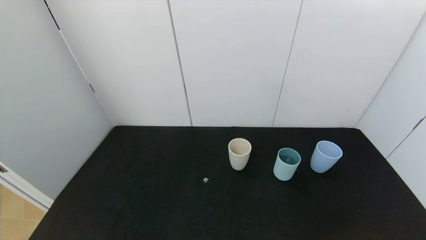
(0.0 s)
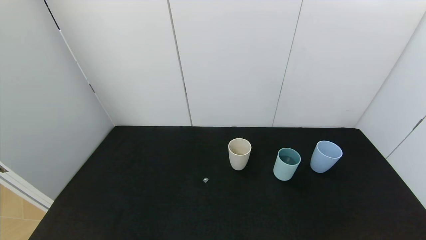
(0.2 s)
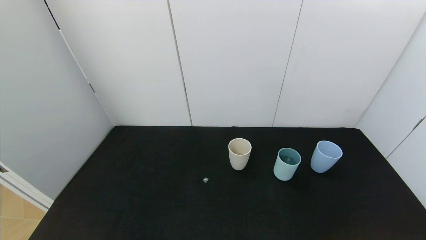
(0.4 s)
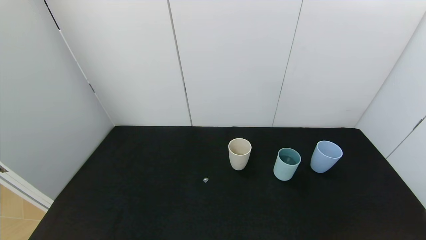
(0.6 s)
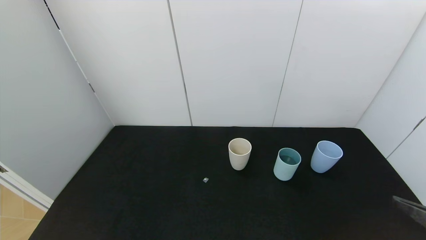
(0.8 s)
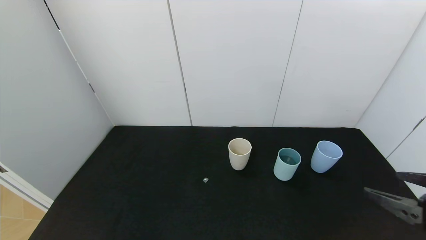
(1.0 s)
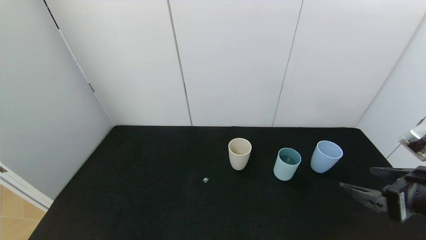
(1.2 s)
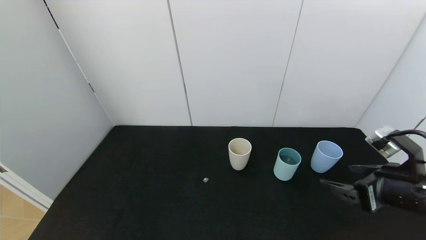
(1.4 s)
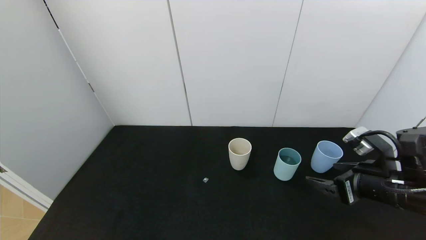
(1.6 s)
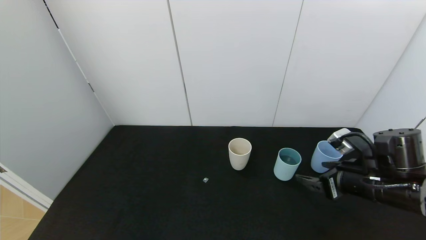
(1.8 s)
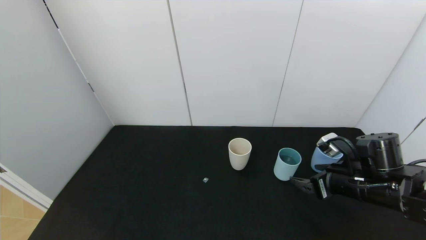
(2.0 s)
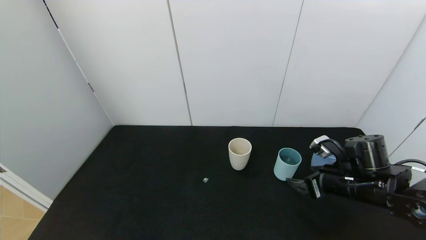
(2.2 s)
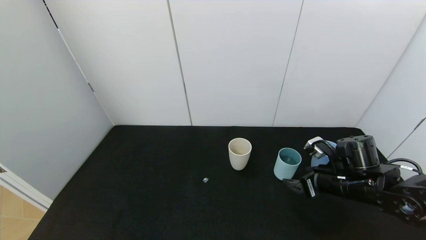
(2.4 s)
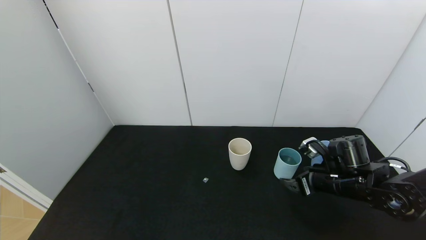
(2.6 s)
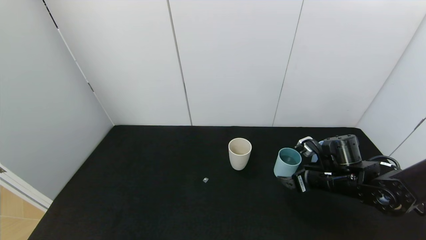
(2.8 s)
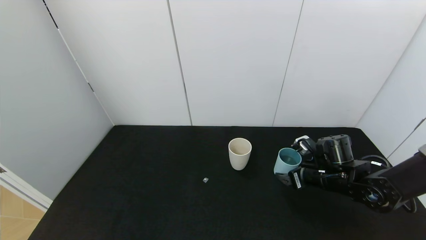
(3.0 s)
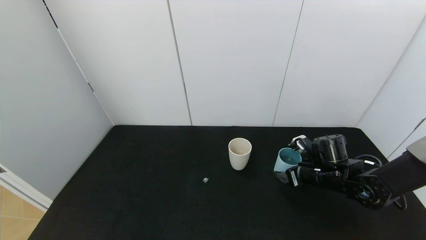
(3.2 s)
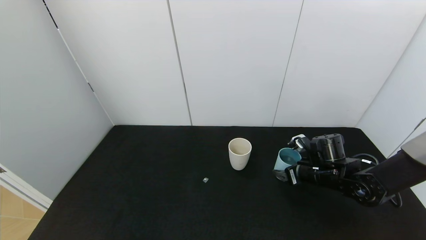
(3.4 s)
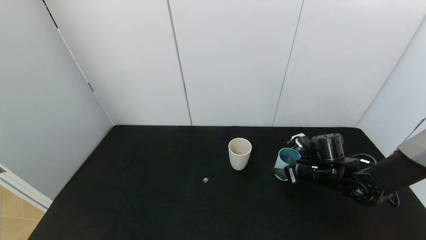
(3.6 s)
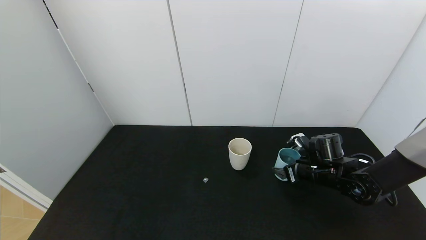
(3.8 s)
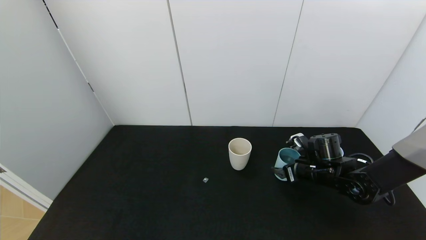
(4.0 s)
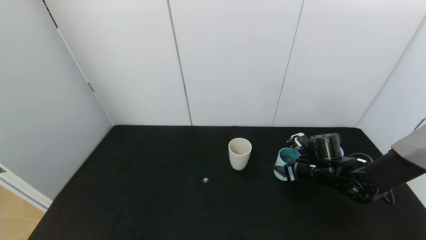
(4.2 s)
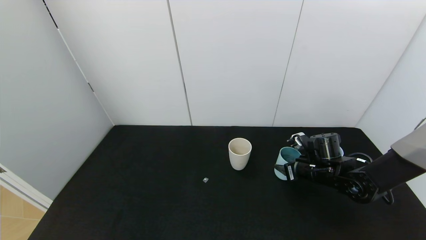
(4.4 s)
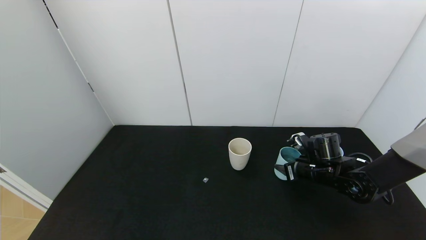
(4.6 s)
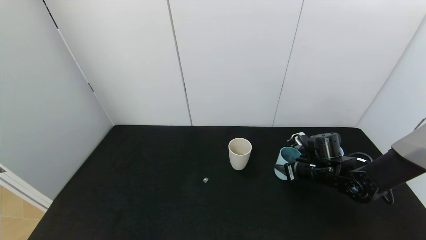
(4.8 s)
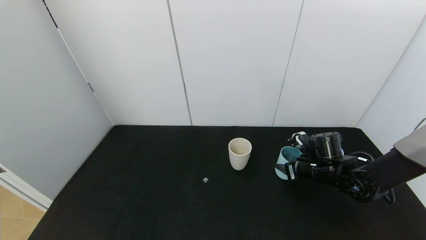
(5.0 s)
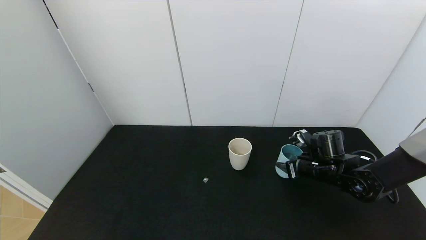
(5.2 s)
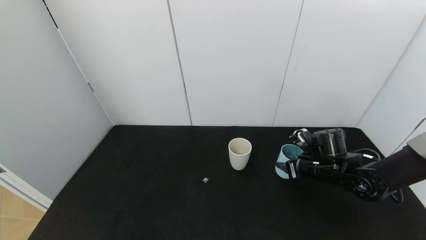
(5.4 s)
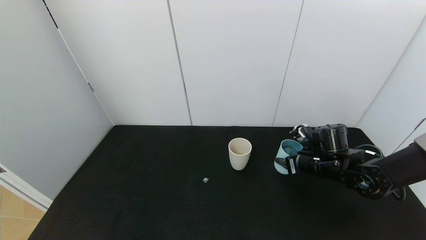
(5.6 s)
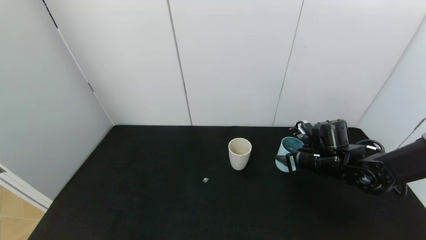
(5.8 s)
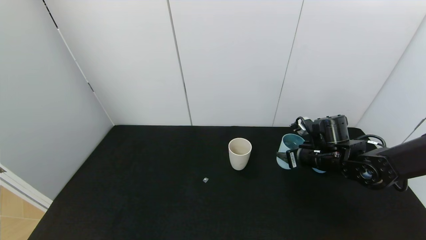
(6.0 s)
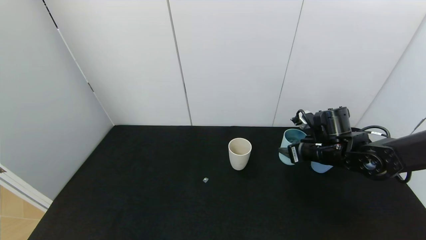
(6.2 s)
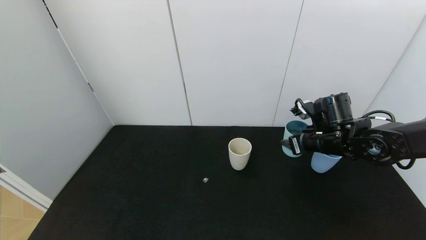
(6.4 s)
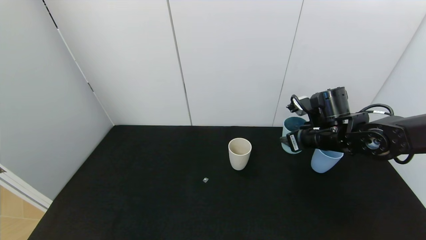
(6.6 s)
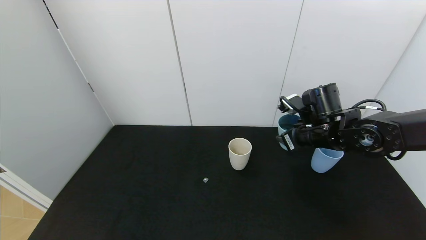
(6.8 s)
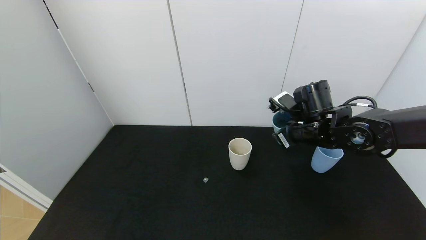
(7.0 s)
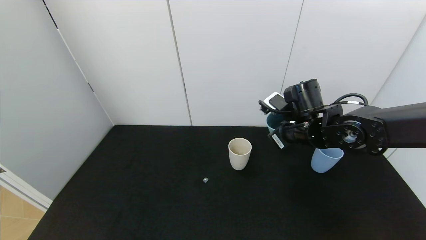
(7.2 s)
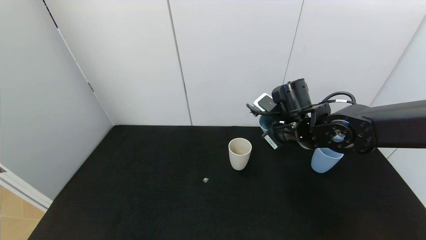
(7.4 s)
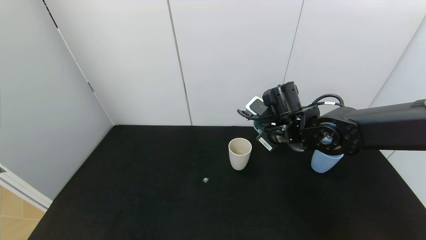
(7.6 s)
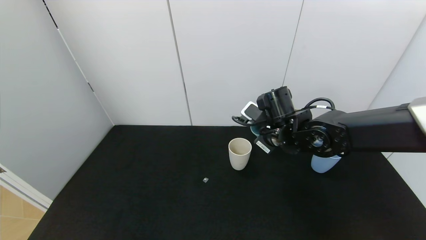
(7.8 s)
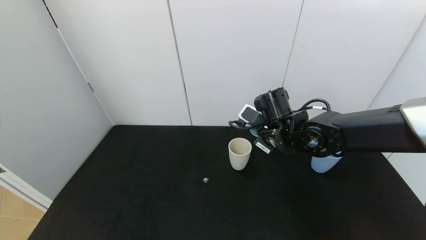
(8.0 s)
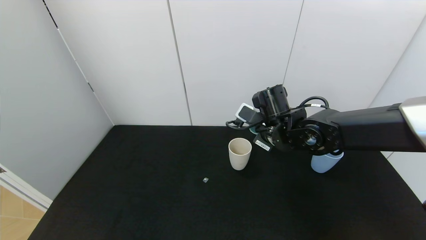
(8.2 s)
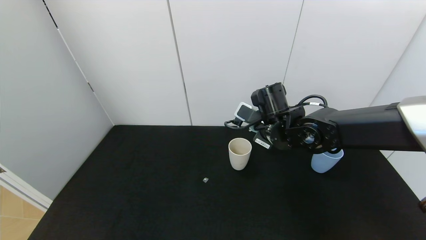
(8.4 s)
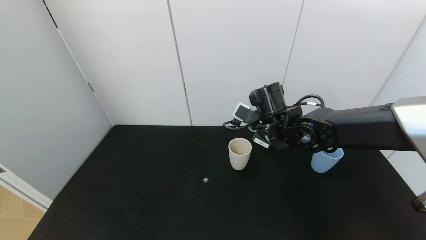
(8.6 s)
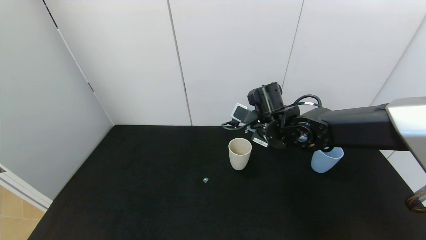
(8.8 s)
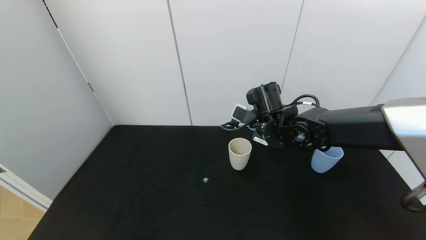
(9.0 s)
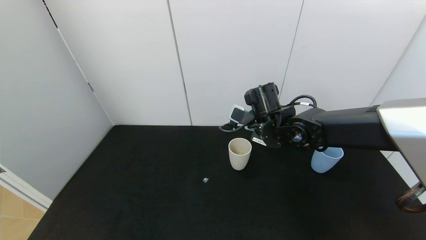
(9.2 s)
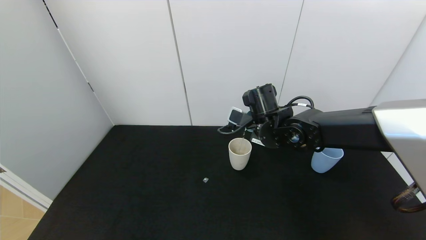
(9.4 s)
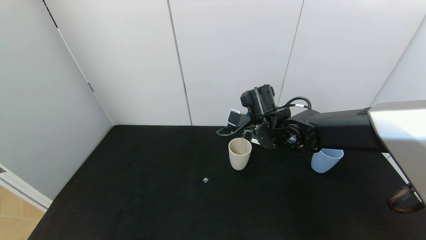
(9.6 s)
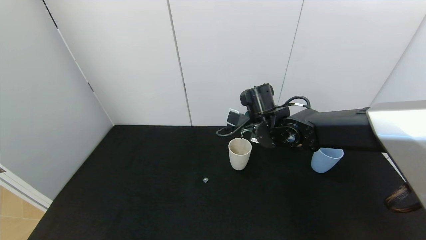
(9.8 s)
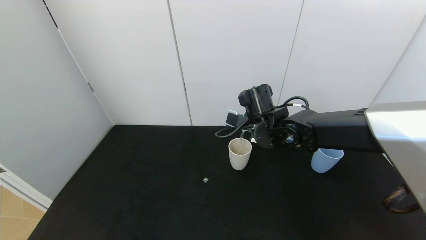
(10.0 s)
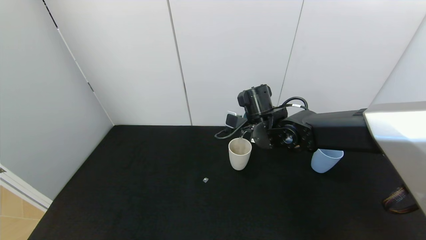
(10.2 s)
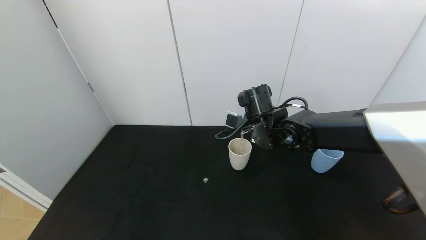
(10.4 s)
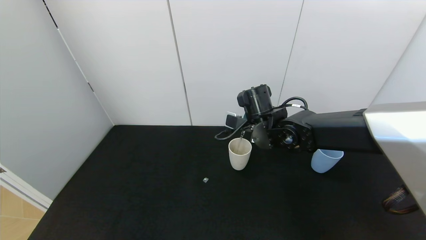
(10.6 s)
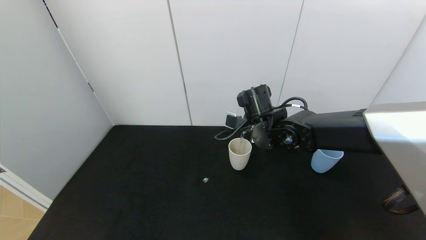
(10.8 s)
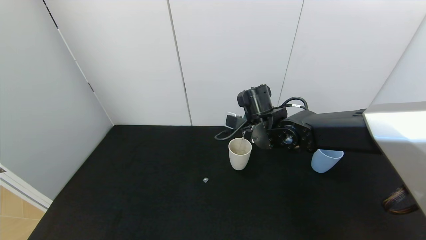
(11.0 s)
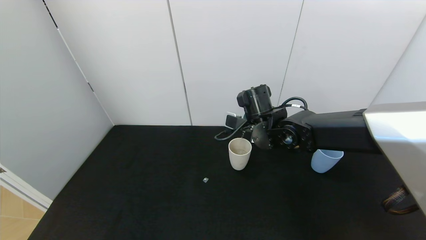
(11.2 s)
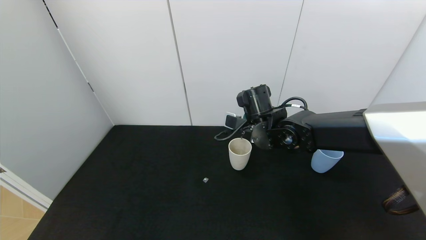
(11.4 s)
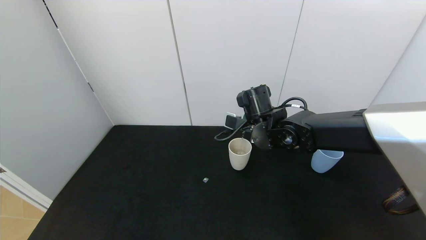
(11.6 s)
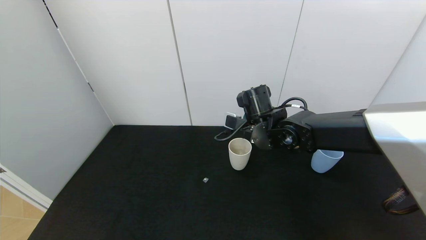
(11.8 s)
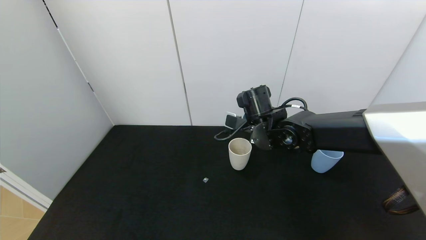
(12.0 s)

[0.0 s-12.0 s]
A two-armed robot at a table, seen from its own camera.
Task of the whole recording: use the gripper to pour the water into the other two cups on black table.
Step, 0.0 to 4.2 s: Grasp the green cup with the right gripper.
0.0 to 1.6 s: The right gripper heads forward, covering some 25 cm.
1.6 to 3.0 s: The right gripper shifts about 15 cm forward and downward.
3.0 to 4.4 s: The right gripper closes its fingers.
4.4 to 6.0 s: The right gripper is displaced upward by roughly 5 cm.
6.0 to 7.6 s: The right gripper moves to the left and upward, roughly 15 cm.
9.0 to 10.4 s: The grippers make only small movements.
10.4 to 12.0 s: Neither gripper changes place.

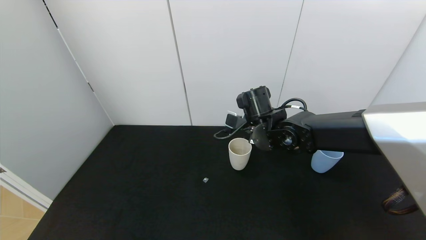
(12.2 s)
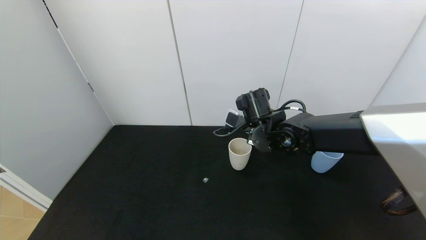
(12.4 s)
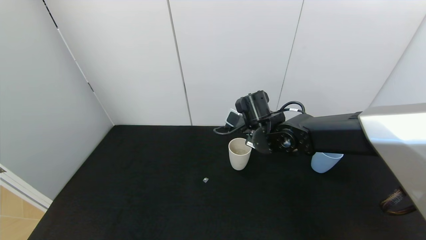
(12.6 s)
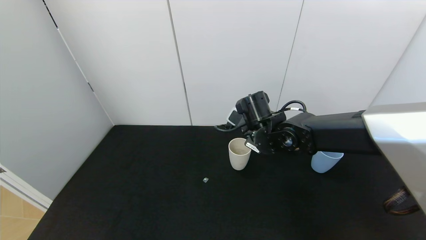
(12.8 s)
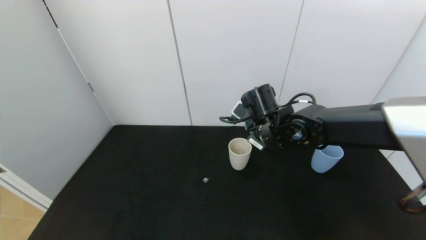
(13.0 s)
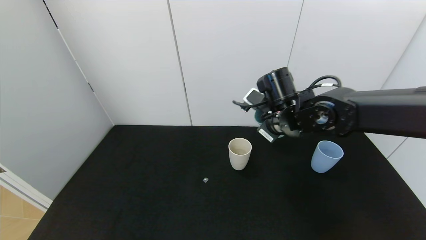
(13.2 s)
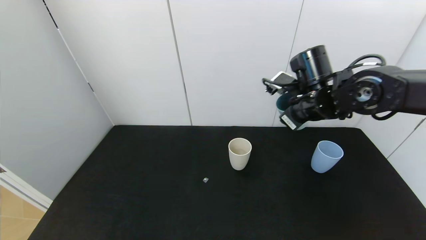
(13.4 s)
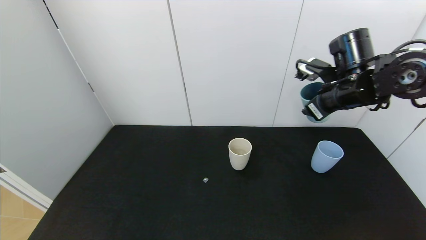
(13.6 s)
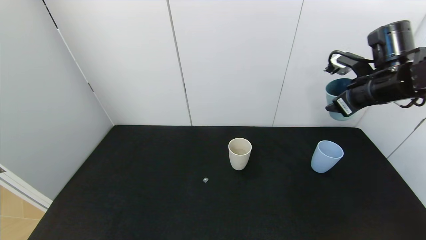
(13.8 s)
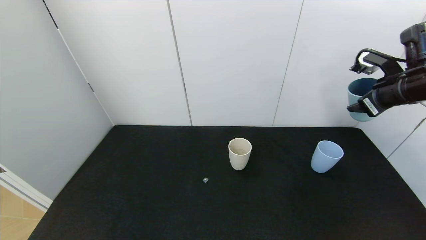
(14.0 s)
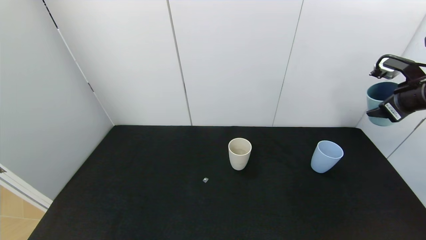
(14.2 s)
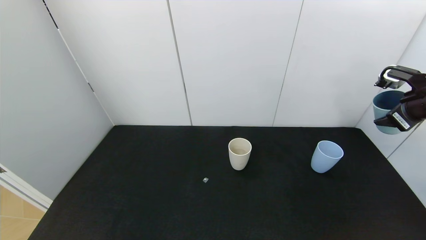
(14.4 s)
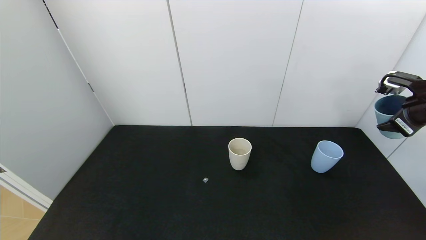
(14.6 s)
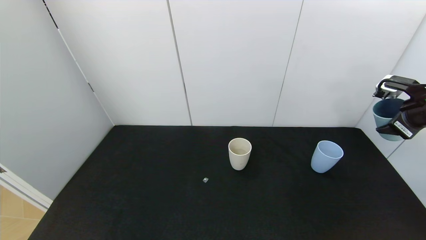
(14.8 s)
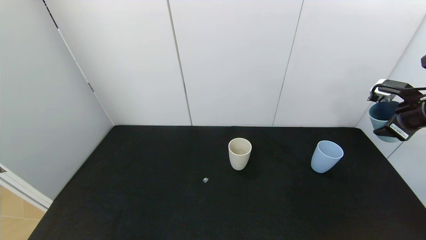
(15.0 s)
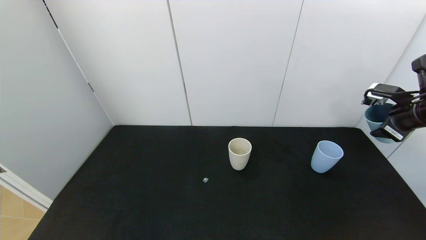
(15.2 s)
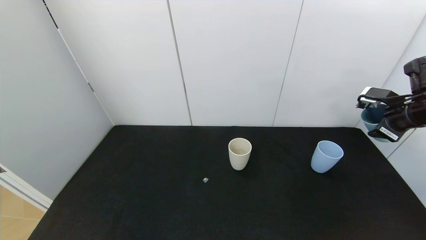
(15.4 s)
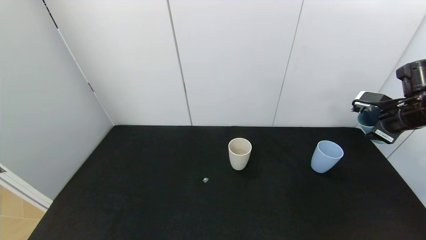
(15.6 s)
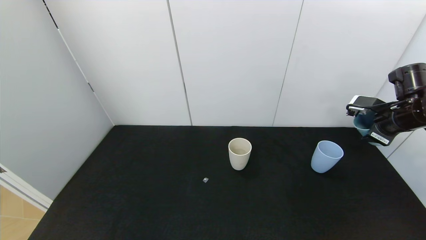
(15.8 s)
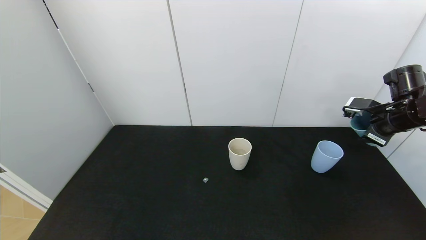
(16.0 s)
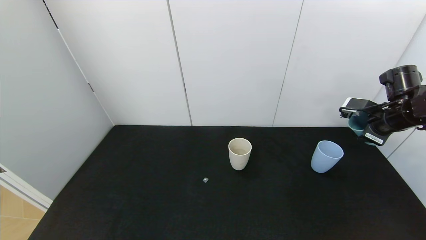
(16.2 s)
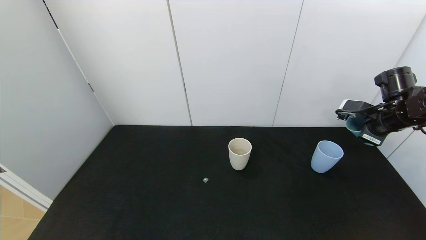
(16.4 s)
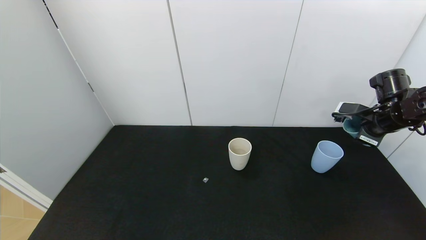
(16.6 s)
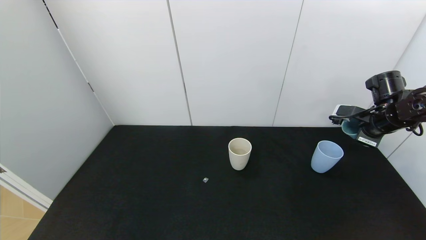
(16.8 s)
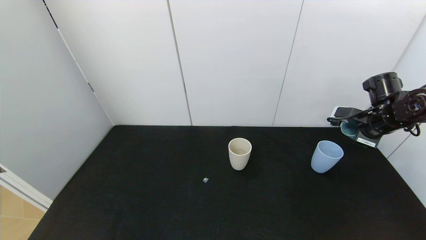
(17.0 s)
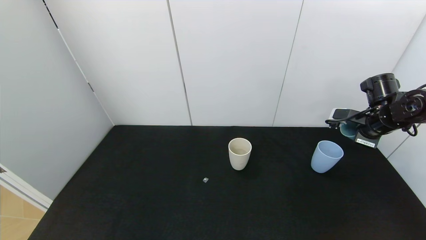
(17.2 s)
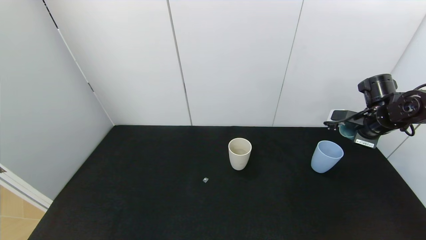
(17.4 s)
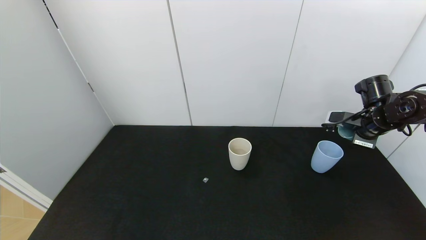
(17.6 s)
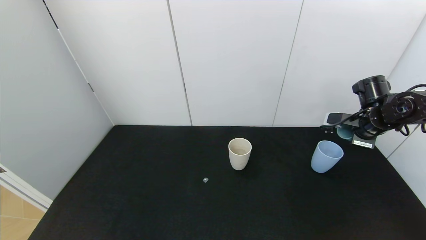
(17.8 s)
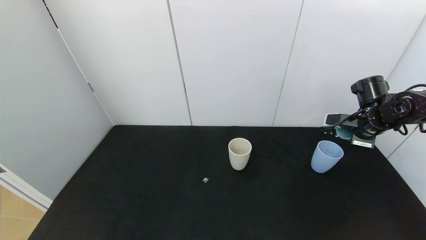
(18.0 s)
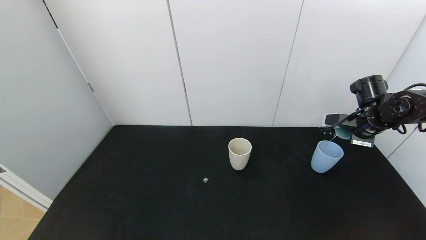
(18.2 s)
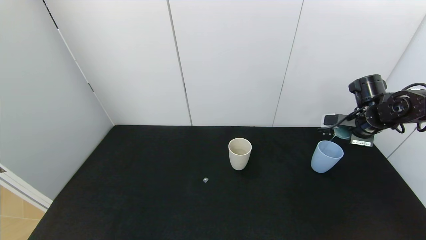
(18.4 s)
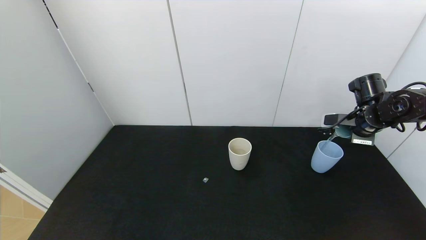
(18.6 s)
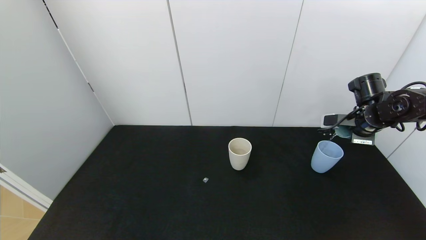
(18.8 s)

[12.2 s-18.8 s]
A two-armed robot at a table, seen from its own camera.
Task of the whole recording: use the gripper to pour the water into the other two cups on black table.
12.2 to 13.8 s: The right gripper is displaced to the right and upward by roughly 25 cm.
13.8 to 15.4 s: The right gripper goes some 10 cm to the right.
15.4 to 17.2 s: The right gripper shifts by some 5 cm.
17.2 to 18.8 s: The grippers make only small movements.
